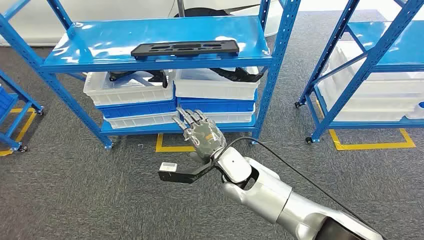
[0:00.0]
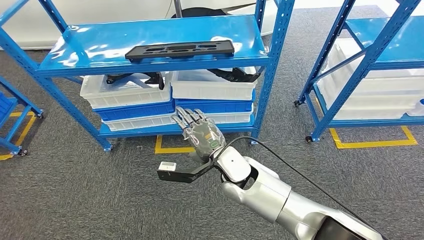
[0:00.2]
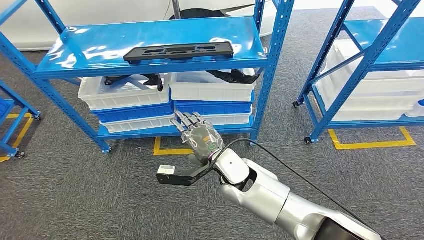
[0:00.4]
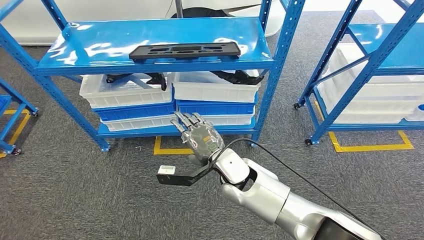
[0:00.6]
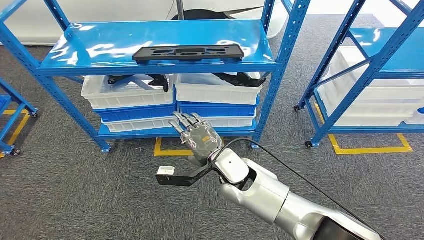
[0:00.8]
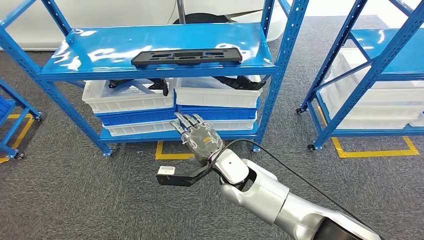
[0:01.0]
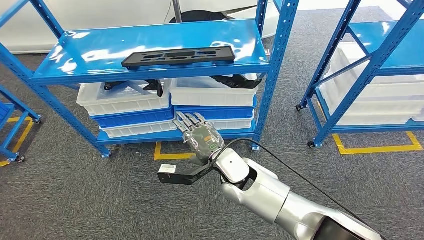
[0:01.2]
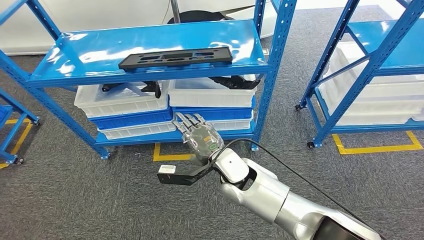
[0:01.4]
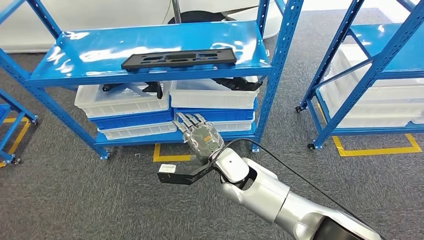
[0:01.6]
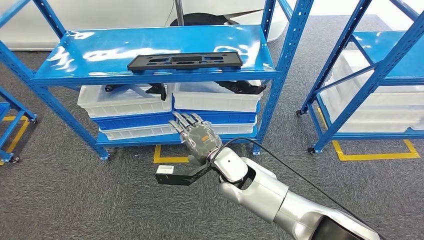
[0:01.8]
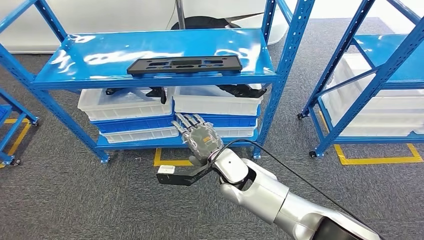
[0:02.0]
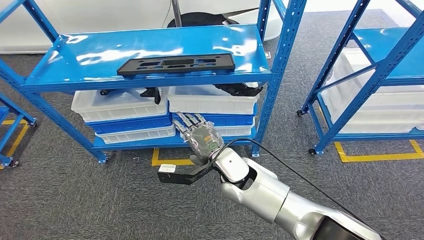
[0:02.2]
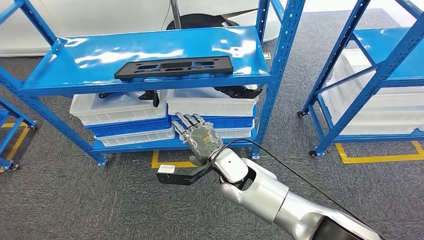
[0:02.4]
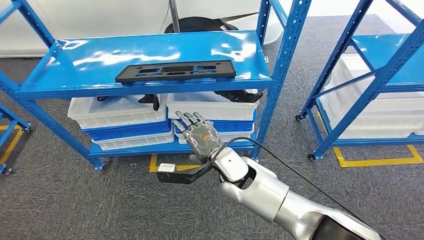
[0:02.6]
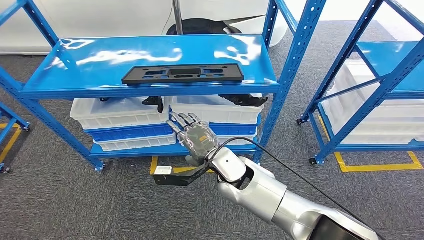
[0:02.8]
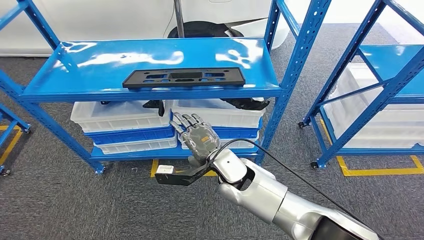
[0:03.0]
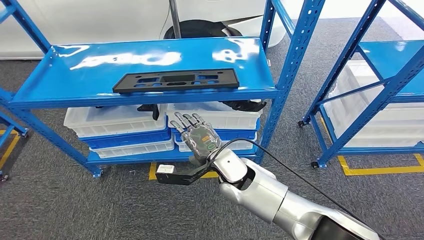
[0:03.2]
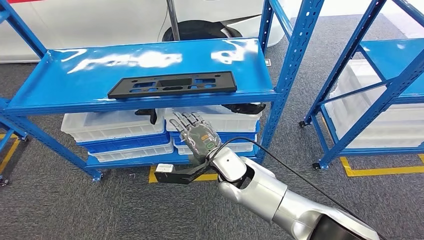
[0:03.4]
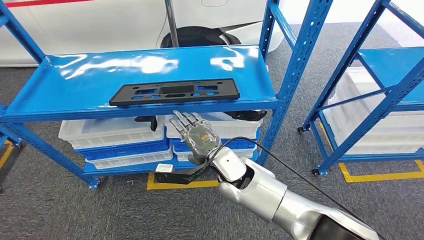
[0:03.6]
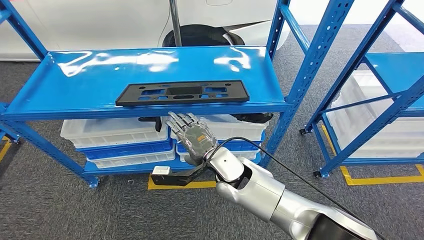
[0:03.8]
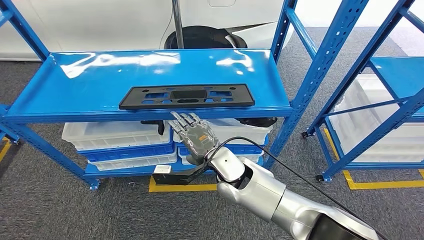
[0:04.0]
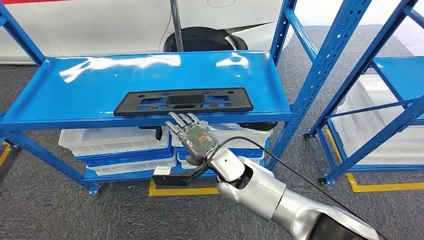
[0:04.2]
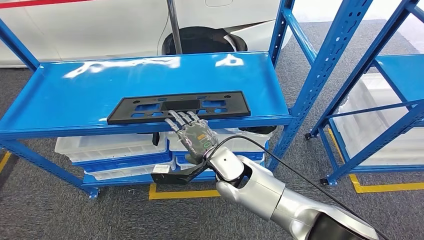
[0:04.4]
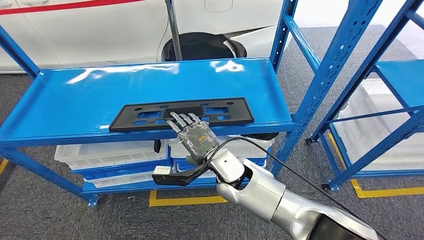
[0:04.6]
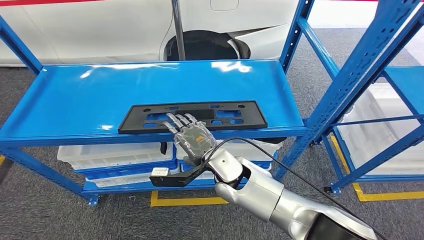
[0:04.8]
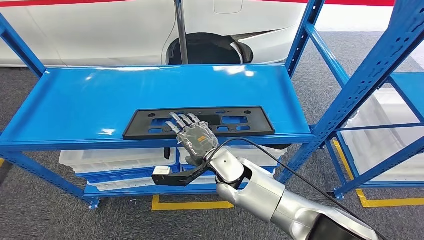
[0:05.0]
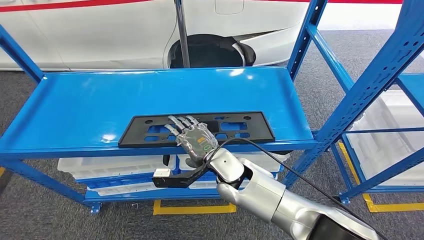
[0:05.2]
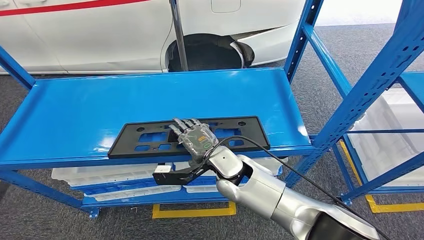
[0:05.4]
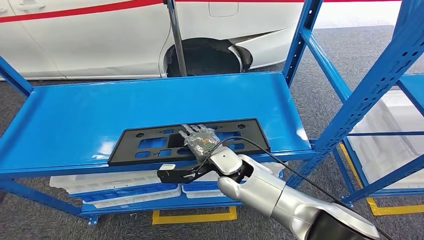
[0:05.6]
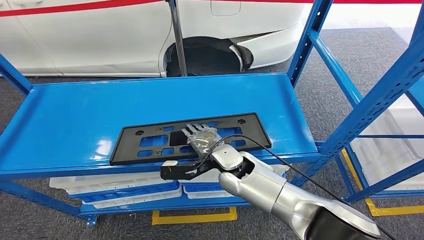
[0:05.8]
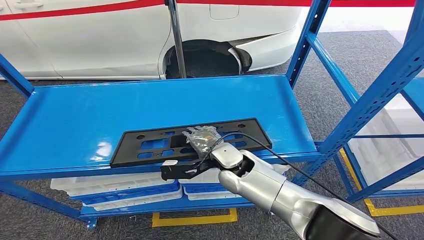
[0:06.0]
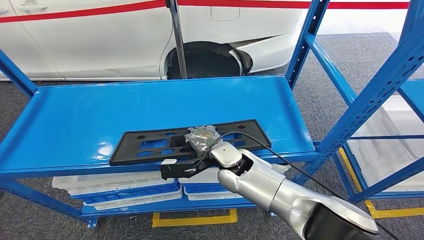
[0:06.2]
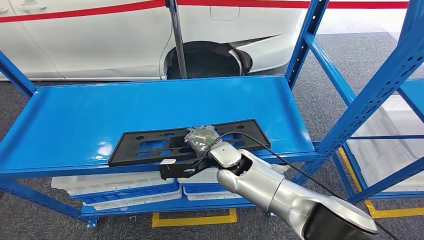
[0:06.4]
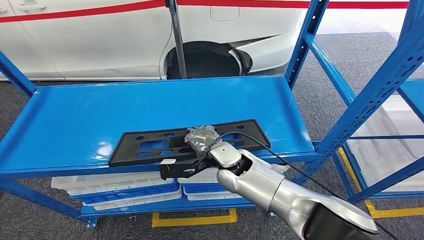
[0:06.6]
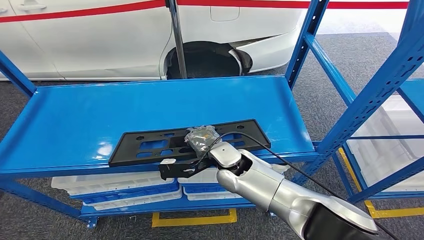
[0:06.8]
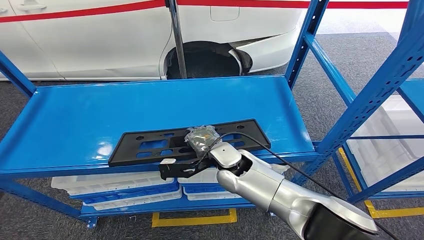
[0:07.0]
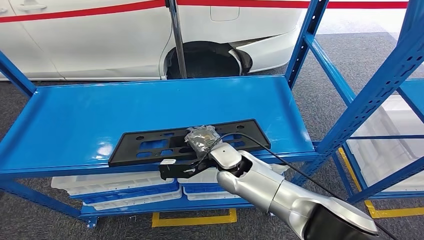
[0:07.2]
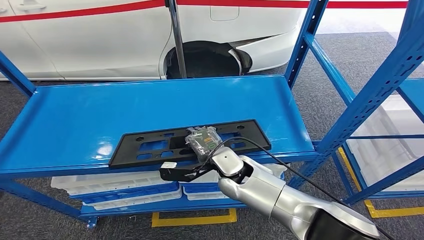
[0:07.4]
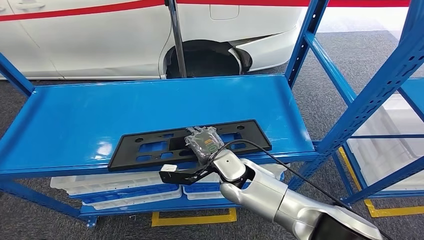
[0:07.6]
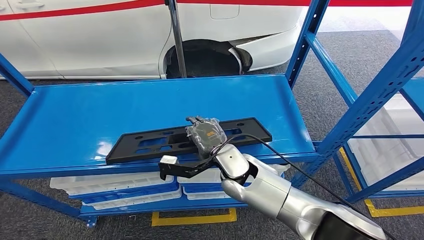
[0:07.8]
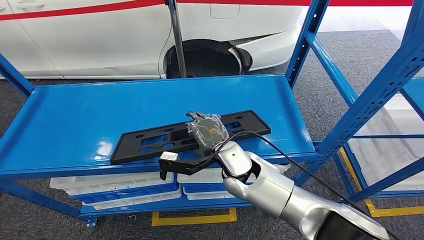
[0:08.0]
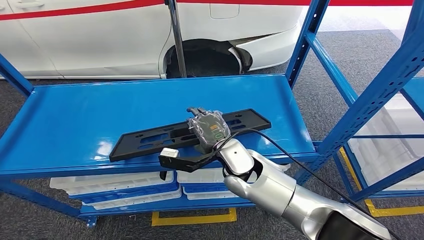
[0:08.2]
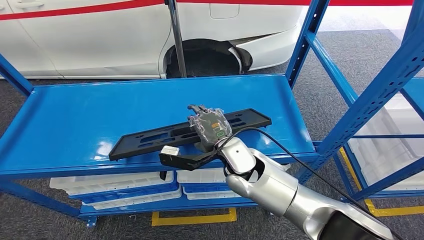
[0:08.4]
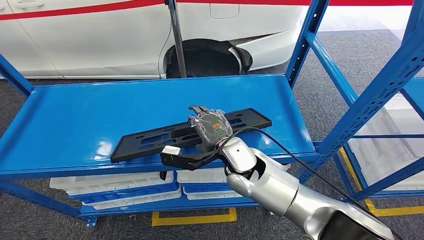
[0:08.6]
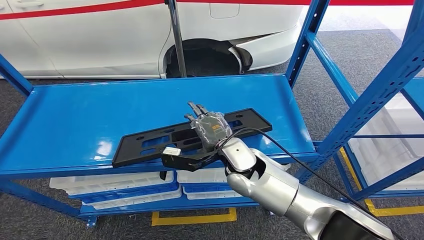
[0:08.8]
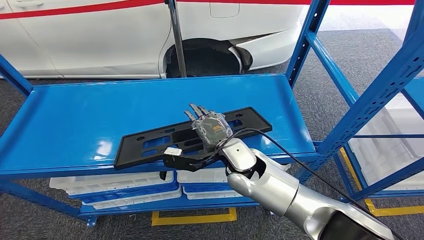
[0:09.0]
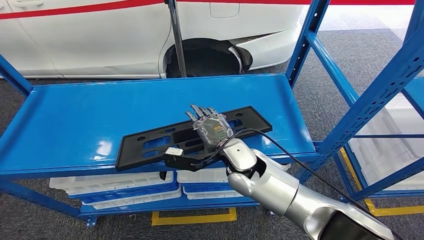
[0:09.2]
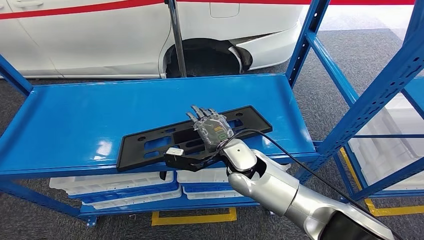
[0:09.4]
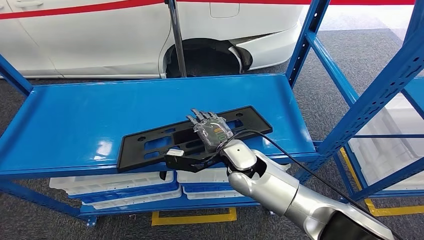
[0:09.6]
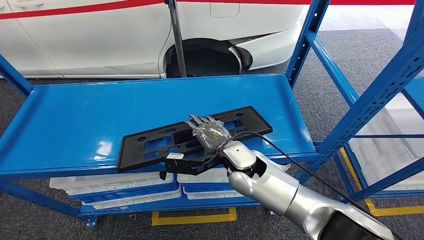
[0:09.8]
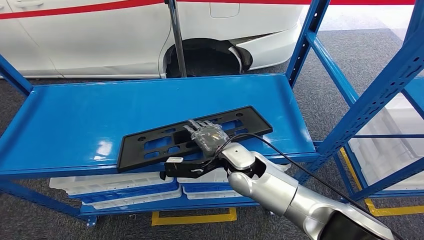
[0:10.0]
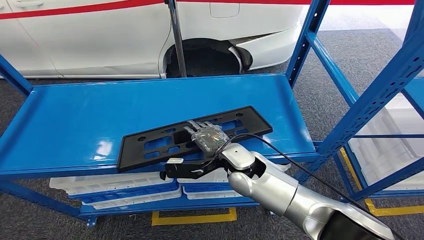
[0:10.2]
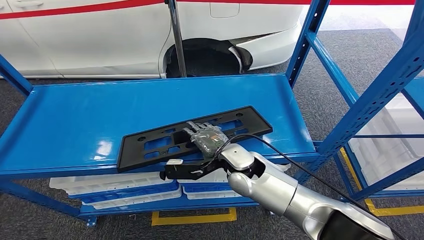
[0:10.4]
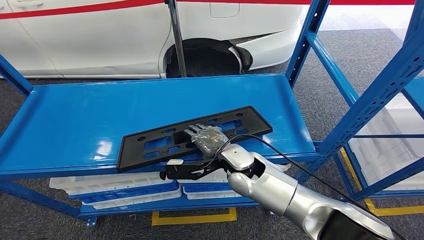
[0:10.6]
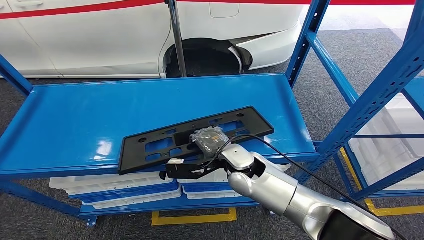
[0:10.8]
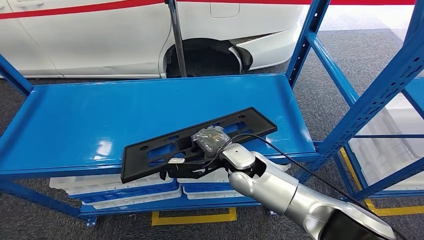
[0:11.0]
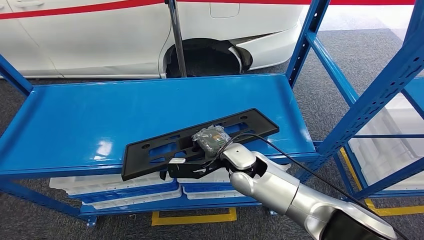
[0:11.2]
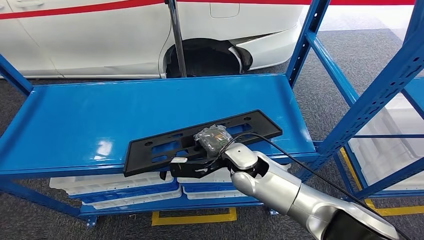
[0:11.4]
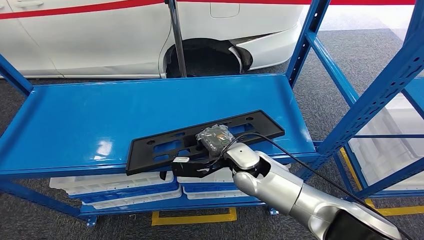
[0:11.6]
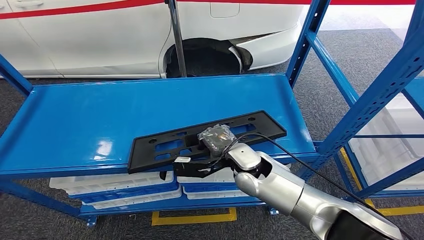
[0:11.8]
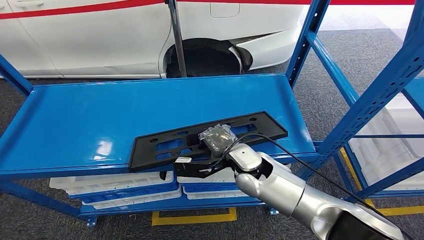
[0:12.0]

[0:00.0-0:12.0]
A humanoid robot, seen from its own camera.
0:06.0 to 0:07.6: The hands make only small movements.
0:07.6 to 0:12.0: The hands make only small movements.

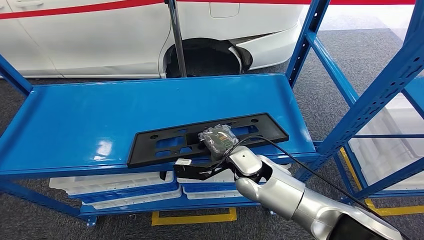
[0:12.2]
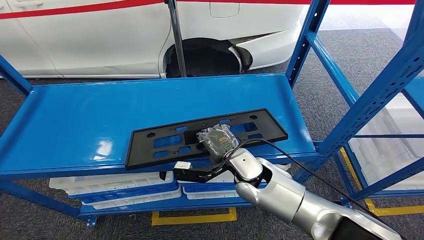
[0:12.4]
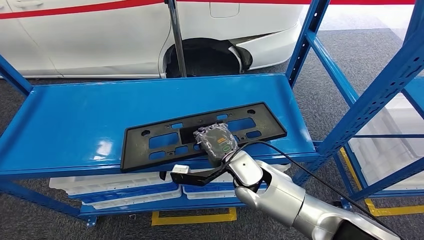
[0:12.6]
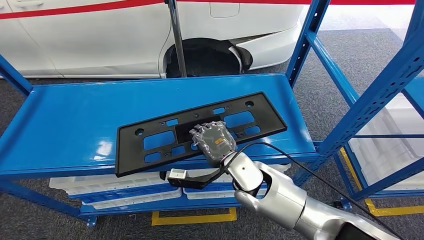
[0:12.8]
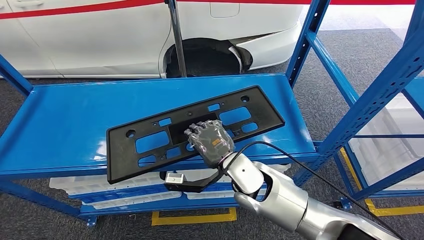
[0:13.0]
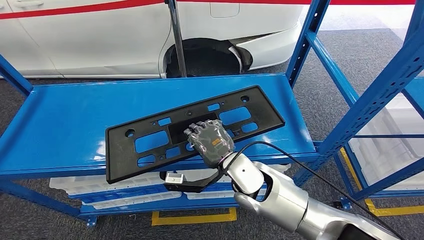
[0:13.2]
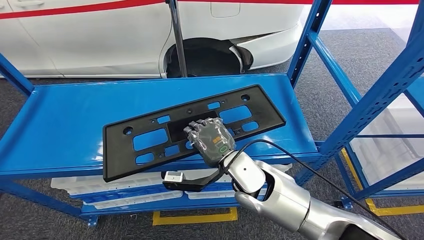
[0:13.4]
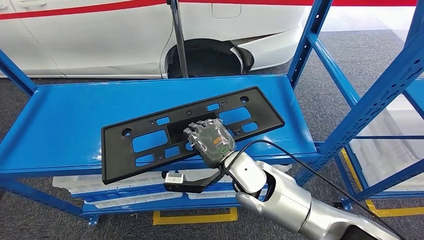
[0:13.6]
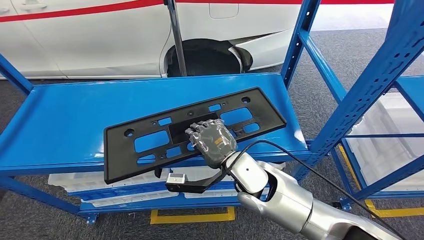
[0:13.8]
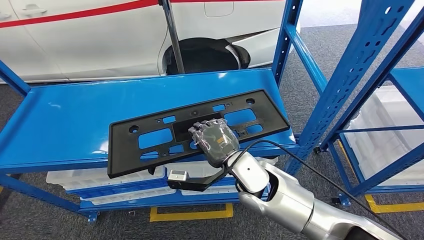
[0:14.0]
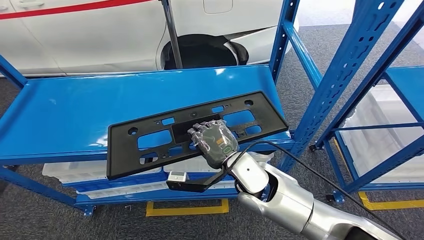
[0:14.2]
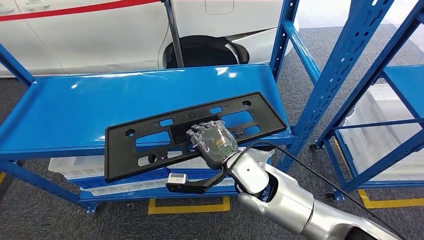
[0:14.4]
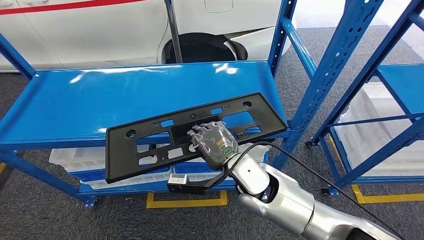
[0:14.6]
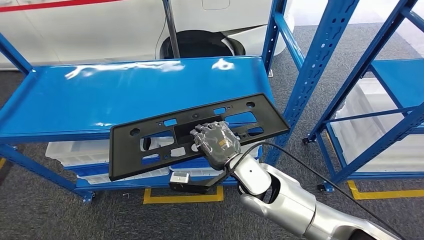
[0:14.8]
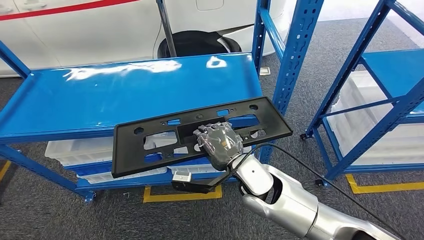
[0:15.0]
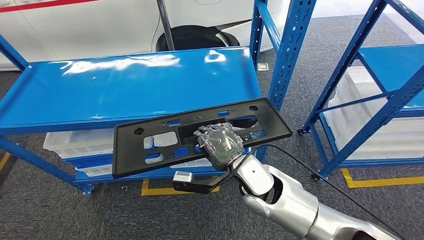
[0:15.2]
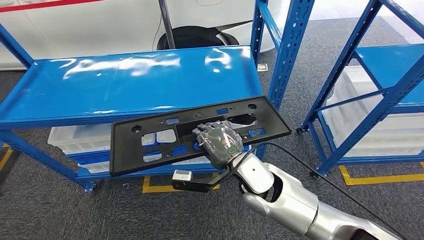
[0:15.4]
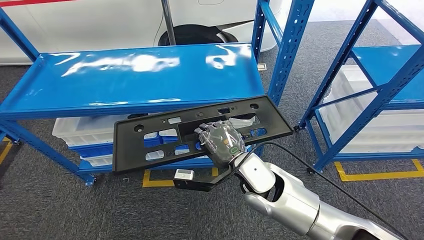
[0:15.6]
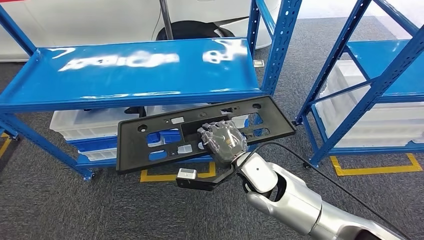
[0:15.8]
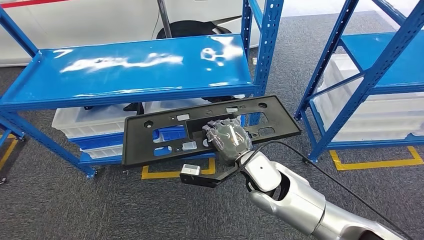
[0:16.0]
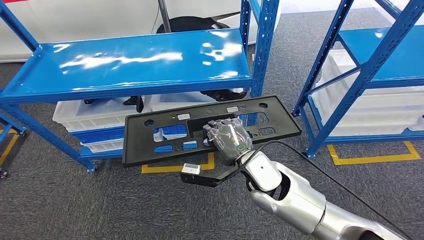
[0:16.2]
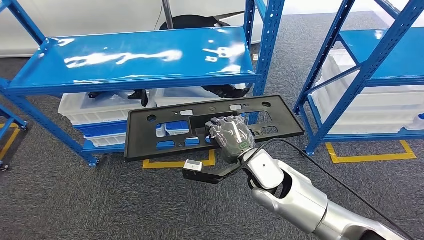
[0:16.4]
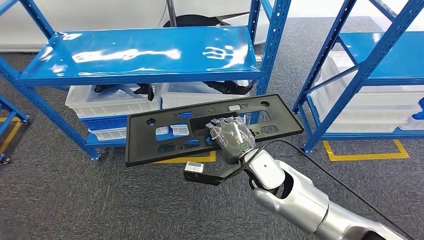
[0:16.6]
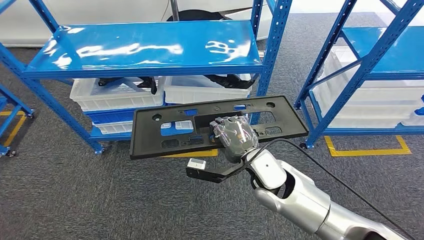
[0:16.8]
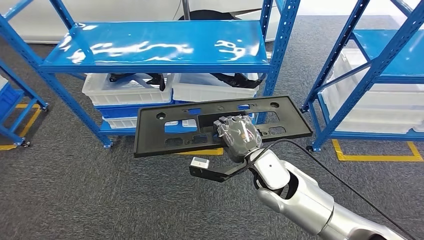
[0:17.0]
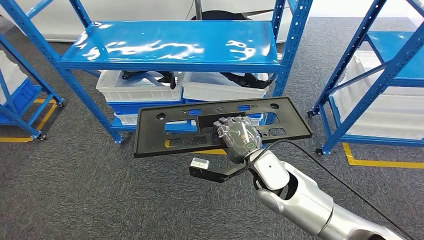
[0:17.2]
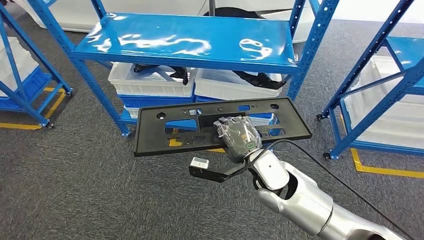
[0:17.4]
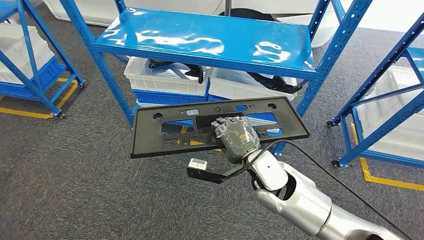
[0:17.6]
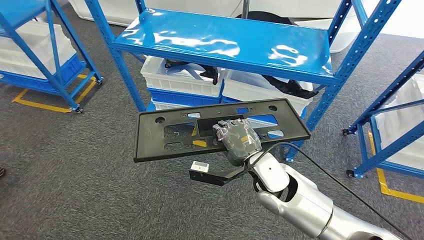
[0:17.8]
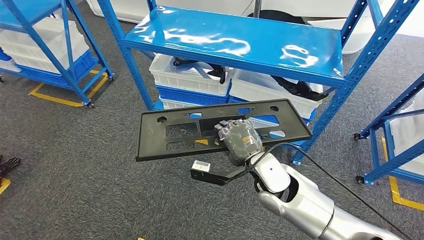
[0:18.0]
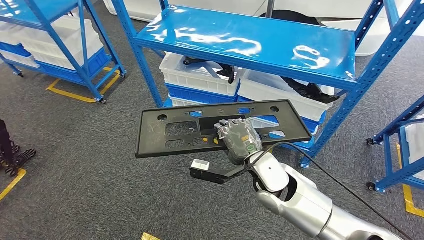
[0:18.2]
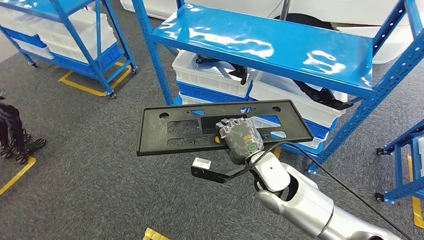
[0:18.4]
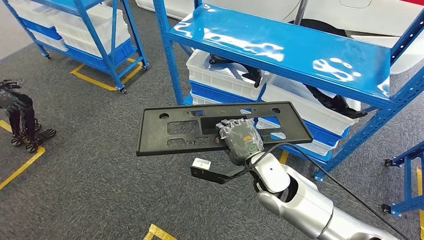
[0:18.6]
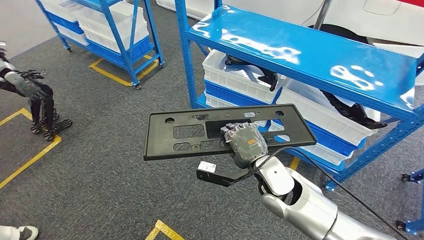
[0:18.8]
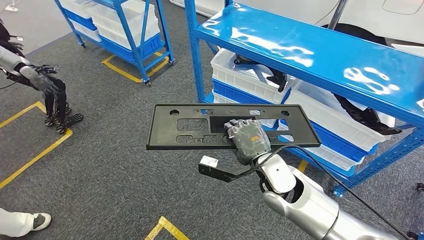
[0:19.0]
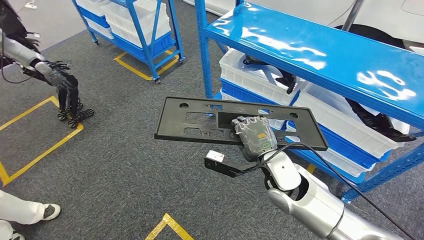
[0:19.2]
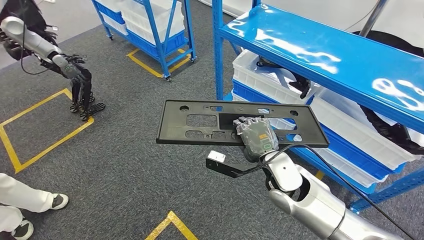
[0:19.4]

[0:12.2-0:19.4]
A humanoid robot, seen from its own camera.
Step, 0:12.2 to 0:15.2: Pick up the large material from the shelf.
